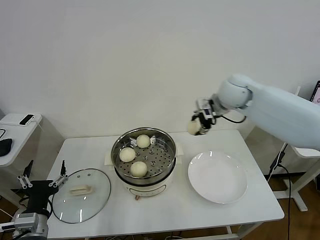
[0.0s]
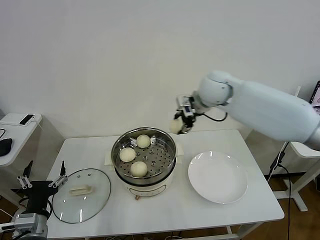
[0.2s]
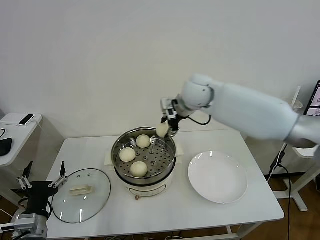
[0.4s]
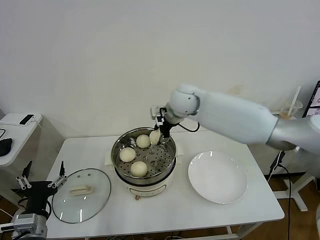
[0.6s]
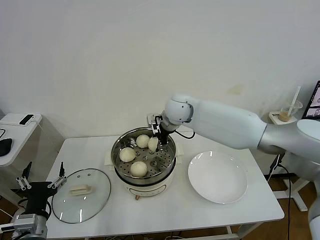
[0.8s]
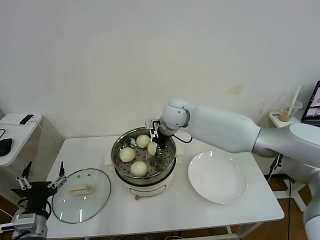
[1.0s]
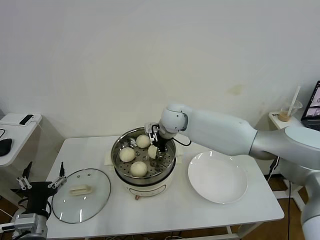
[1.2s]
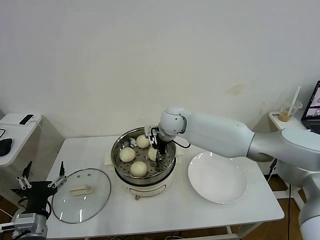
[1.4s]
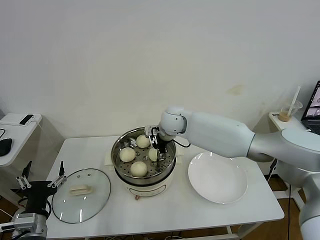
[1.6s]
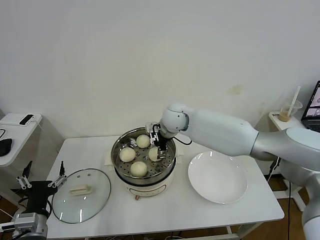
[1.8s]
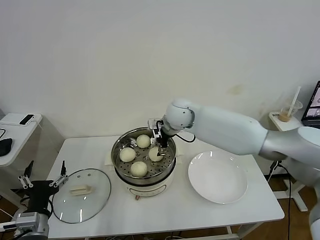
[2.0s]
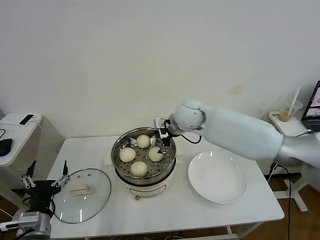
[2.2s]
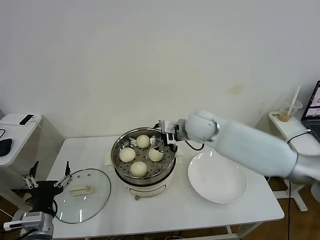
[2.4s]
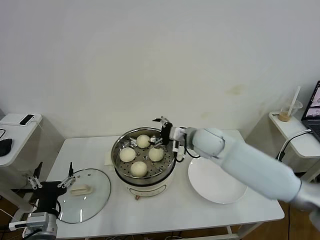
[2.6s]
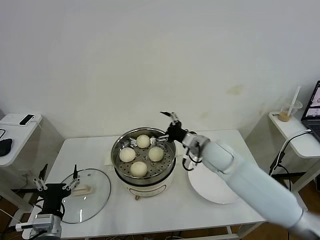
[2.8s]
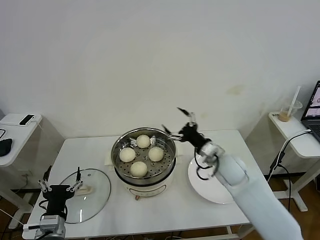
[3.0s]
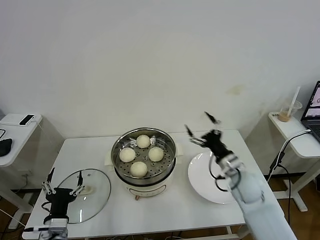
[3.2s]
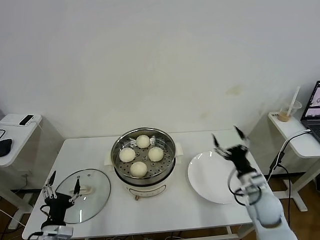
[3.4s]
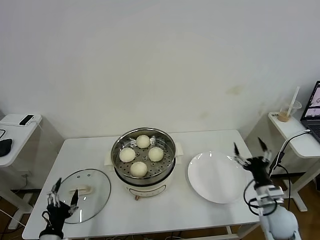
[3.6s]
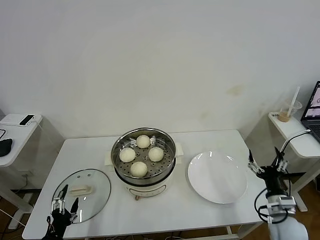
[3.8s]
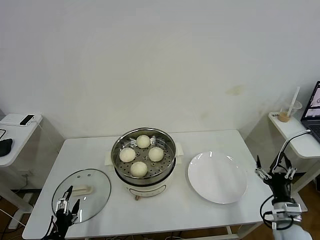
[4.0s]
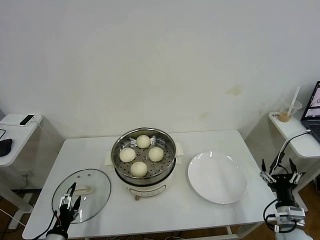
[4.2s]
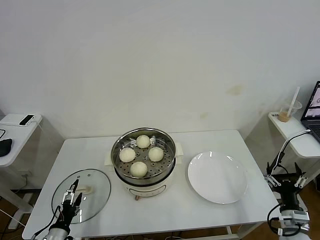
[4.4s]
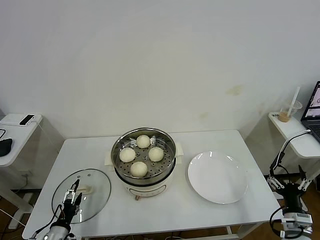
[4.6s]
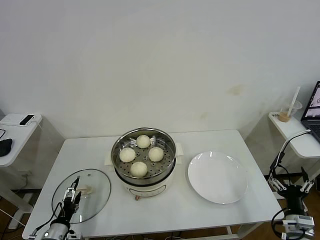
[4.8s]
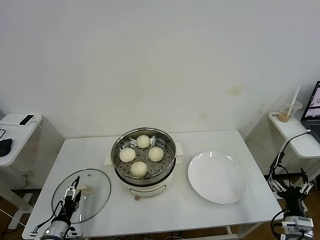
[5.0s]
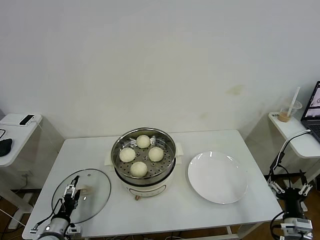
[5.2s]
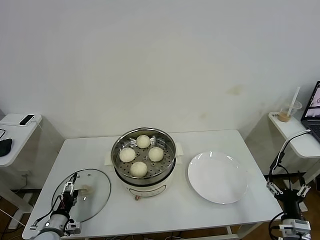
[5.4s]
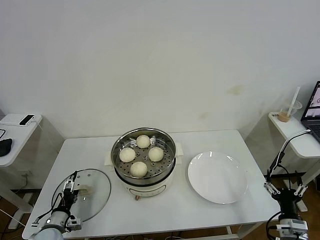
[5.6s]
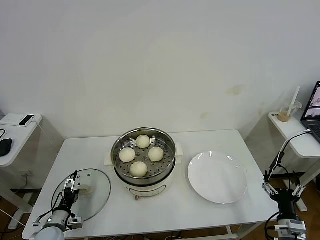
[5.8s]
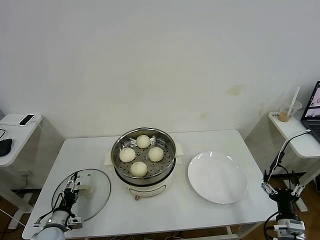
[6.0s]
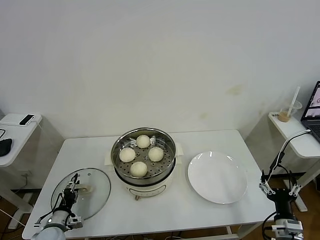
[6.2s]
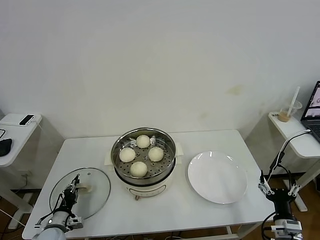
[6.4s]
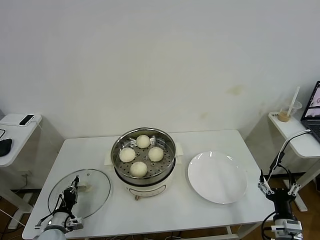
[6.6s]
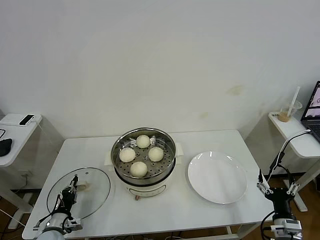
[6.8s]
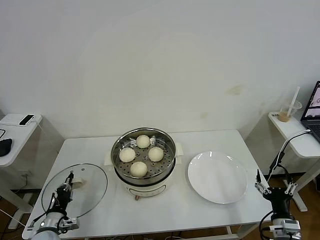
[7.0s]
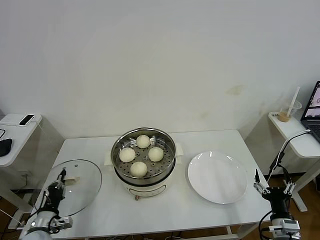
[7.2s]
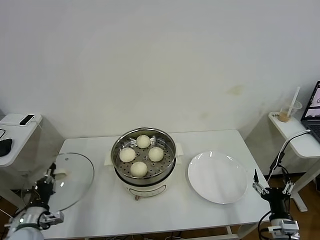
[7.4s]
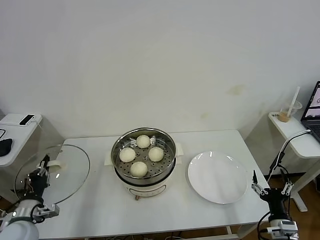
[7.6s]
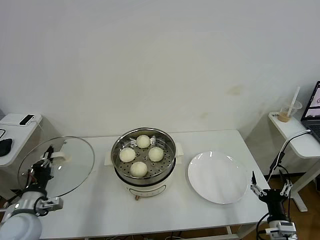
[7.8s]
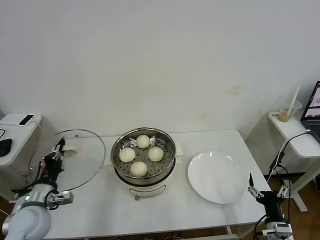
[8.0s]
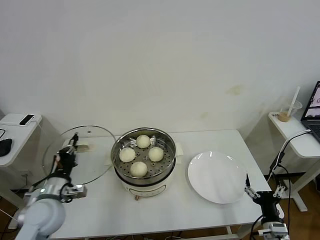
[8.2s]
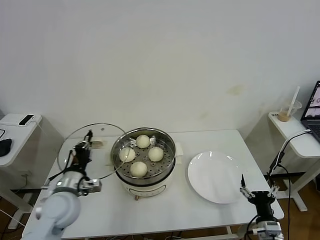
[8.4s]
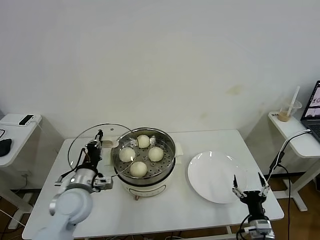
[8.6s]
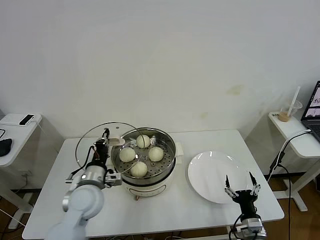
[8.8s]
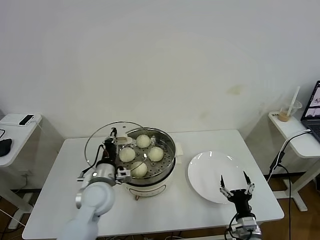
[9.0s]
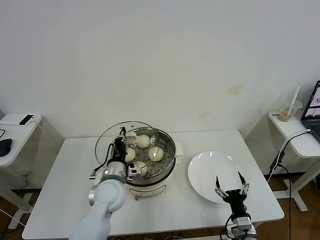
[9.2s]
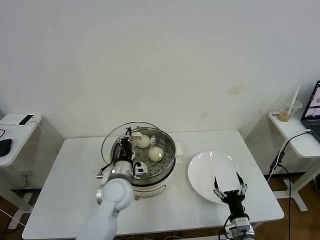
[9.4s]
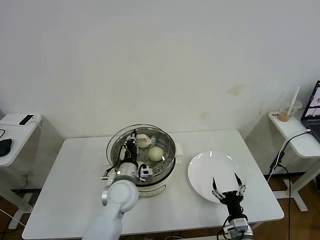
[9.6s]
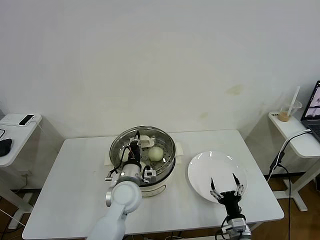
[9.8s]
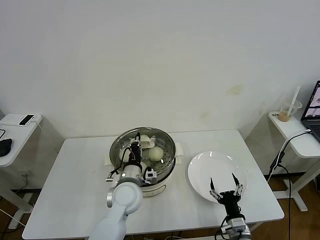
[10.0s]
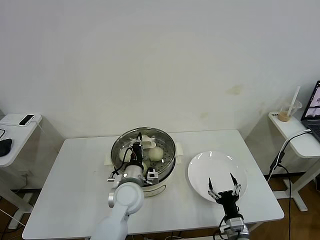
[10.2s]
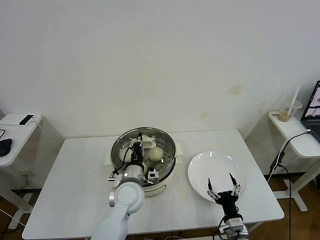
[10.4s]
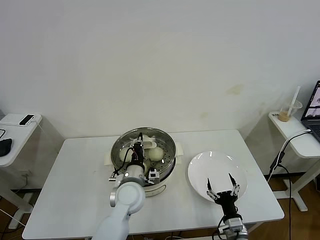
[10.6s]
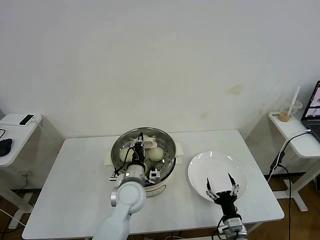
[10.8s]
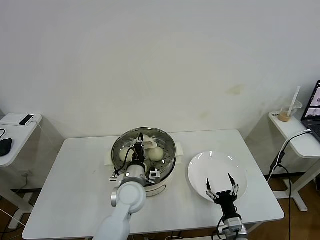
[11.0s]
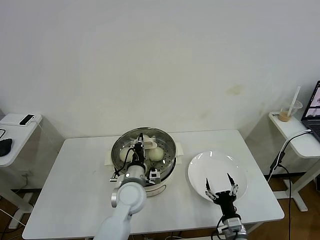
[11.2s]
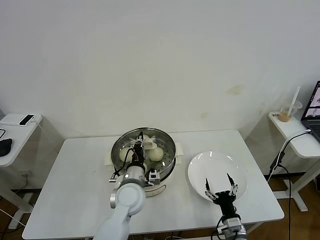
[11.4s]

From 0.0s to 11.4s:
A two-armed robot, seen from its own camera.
Task of the whole recording: take steamed baozi put them in steamer then cover it.
Step, from 0.0s to 2.0s: Place the baozi on the steamer with right gripper.
Step, from 2.2s to 6.6s: Grasp the pot lid with left gripper.
From 0.0s to 1.4s: The right gripper heads to the left and downward, covering some 20 cm.
From 1.4s to 2.8s: The right gripper moves to the right and backward, some 20 cm, and opens up.
From 2.8s to 4.2s: The right gripper is displaced to the right, backward and downward by roughly 35 cm, while the left gripper is displaced downward and to the left by roughly 10 cm.
From 4.2s to 5.6s: The left gripper is displaced forward by roughly 10 cm.
From 5.6s to 7.2s: The left gripper closes.
From 7.2s to 8.6s: The left gripper is displaced to the right, upward and forward by approximately 20 cm. The right gripper moves about 5 cm.
From 8.6s to 10.0s: The left gripper travels to the right by roughly 15 cm. The right gripper goes some 5 cm to the left.
From 10.0s to 11.4s: Both grippers stay put.

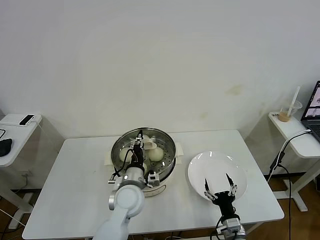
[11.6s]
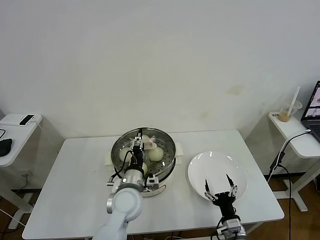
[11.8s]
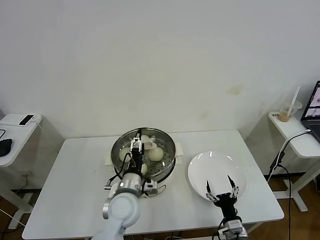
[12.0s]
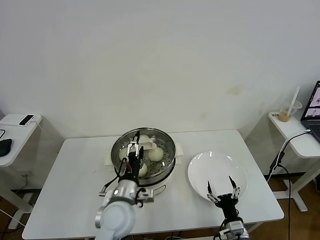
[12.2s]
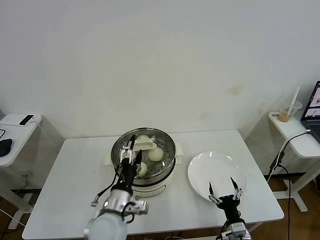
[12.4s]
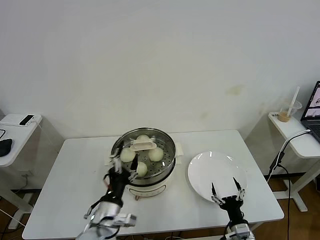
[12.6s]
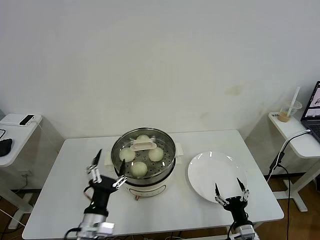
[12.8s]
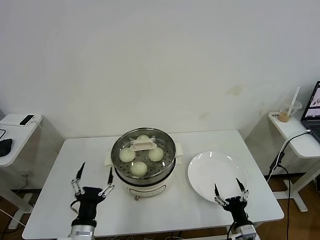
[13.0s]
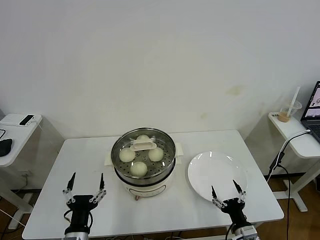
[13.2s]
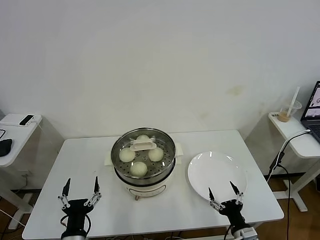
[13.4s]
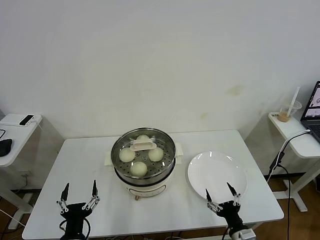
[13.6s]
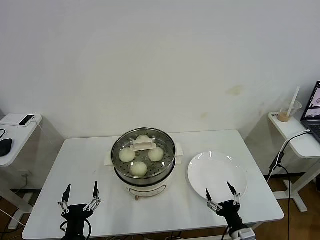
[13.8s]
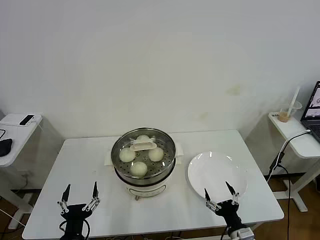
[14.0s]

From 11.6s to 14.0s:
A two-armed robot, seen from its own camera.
Task of the whole recording: take steamed baozi put them in steamer then cover it.
From 11.6s to 12.8s: The left gripper shifts about 15 cm backward and to the left, and opens up.
From 12.8s to 14.0s: The left gripper shifts some 10 cm backward, to the left and downward.

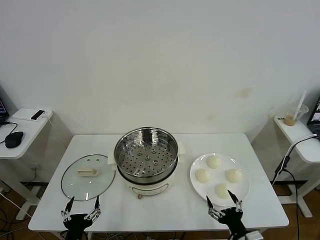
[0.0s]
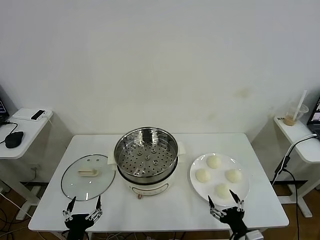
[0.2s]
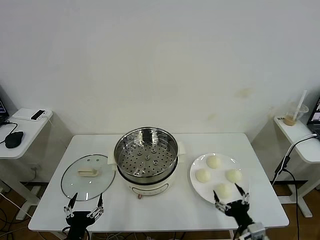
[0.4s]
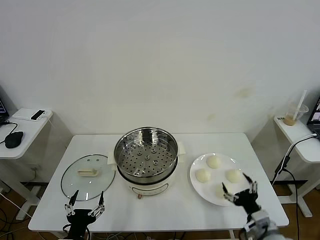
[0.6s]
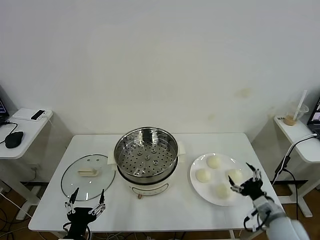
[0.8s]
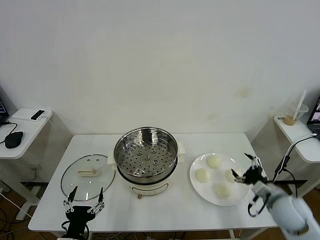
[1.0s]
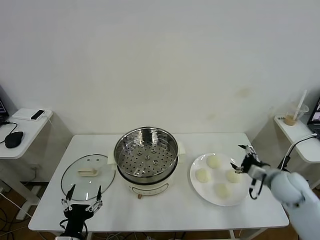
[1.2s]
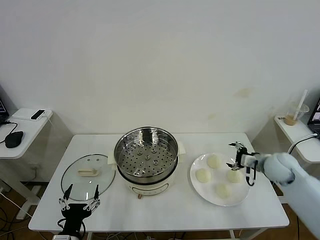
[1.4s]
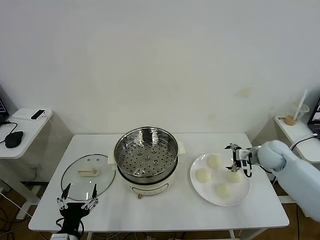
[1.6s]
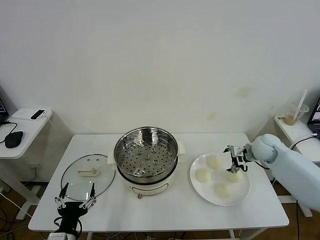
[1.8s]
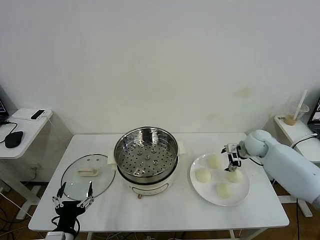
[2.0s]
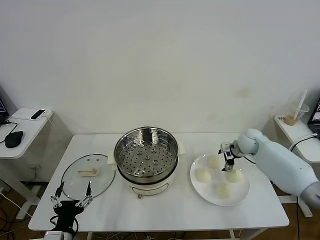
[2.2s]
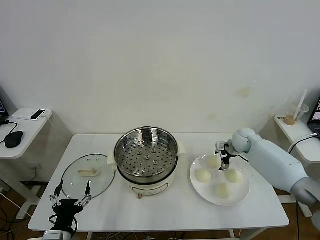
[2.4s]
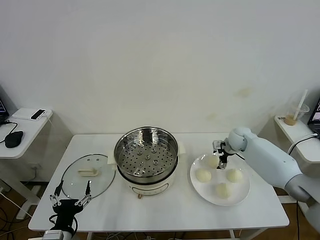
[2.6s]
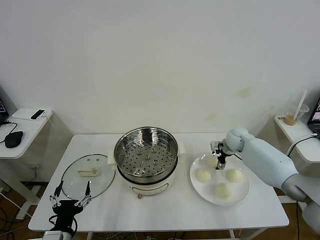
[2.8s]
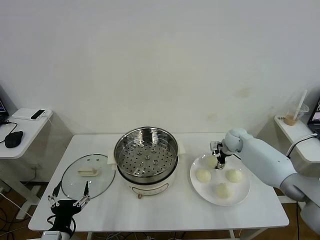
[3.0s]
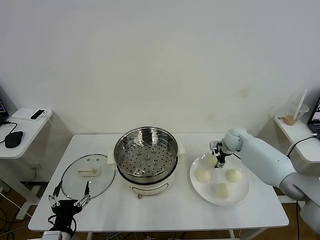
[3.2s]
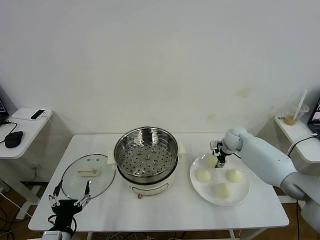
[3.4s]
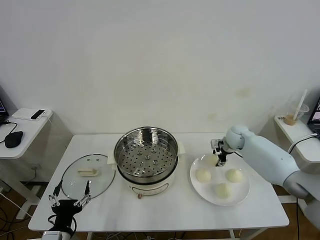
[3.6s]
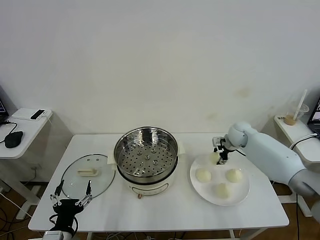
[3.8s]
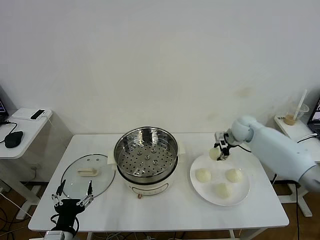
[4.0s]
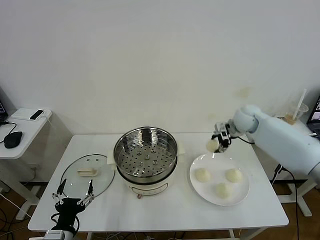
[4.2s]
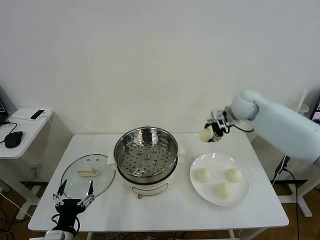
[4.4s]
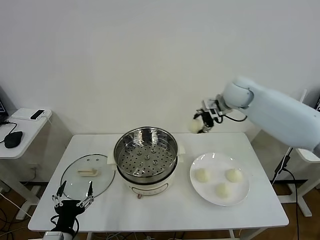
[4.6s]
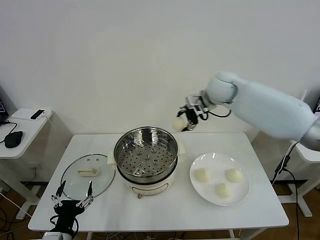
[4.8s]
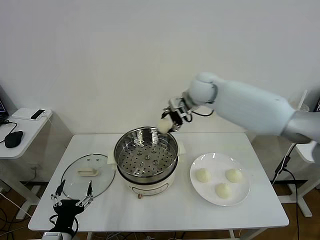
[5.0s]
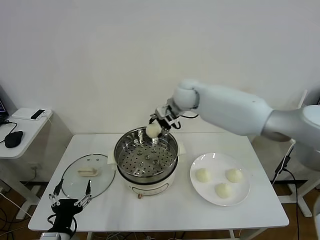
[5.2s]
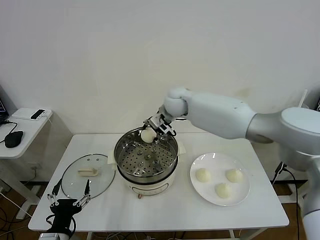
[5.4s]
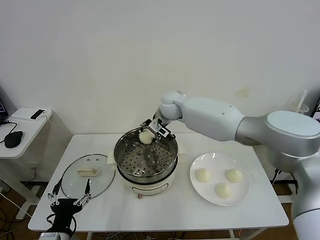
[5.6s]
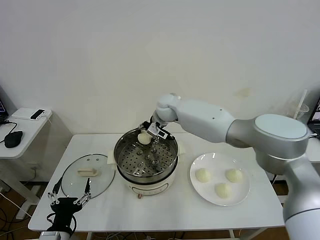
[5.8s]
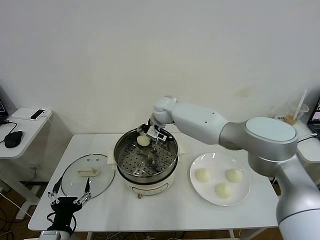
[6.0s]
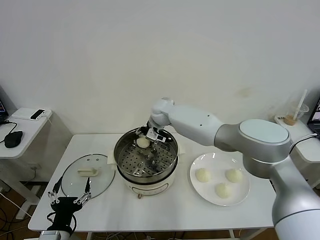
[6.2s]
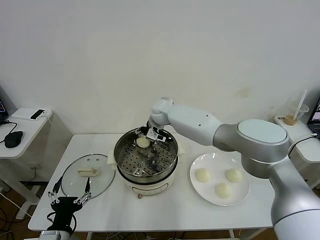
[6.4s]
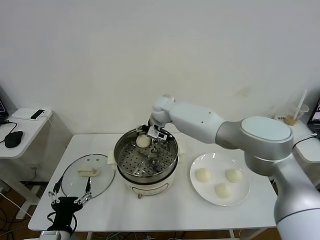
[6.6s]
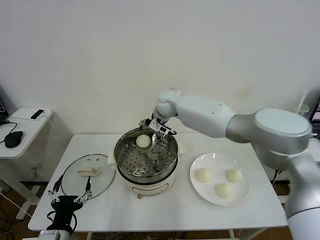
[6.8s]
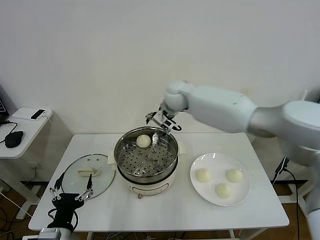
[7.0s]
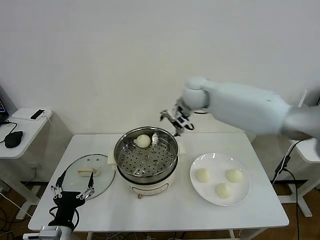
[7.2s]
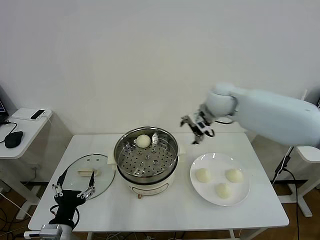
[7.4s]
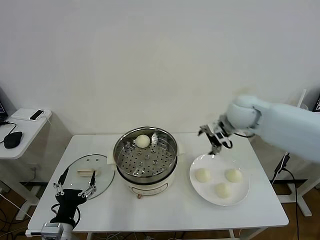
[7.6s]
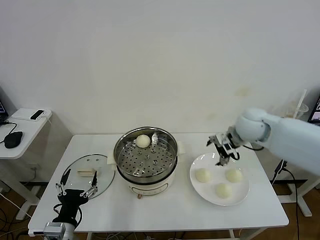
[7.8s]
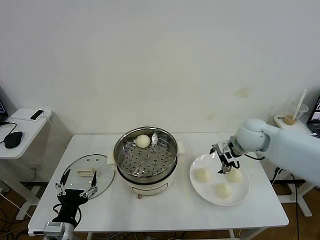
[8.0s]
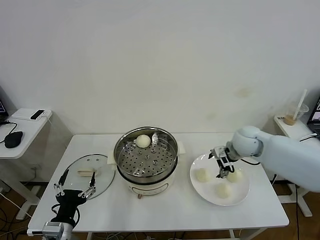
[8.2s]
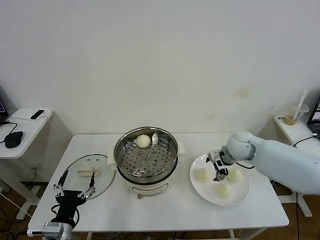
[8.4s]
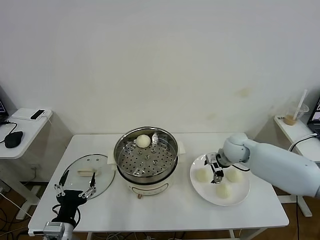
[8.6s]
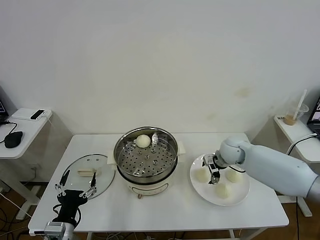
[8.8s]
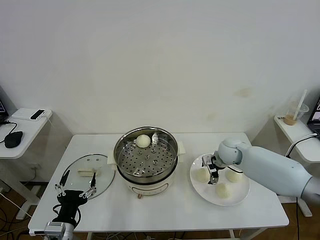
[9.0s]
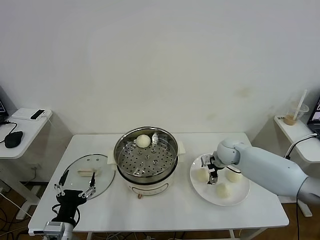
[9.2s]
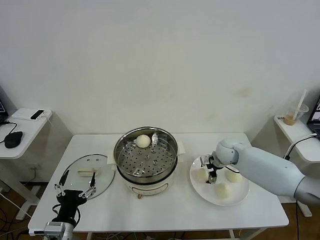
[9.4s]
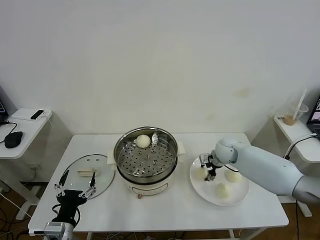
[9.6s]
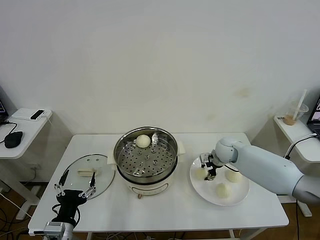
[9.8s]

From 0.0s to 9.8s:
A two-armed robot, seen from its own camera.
Task of the whole recording: take steamed baozi put them in steamer then cover it.
Step, from 0.0s to 3.4s: Grasp the baozi in the plate with right gripper.
Step, from 3.6s to 6.4s: Place the baozi on the steamer with right gripper.
Step, from 6.8s to 9.6s: Grasp the baozi in the plate with right gripper.
From 1.4s to 2.8s: The right gripper travels forward and to the left by approximately 15 cm.
From 2.8s to 4.2s: The right gripper goes roughly 15 cm upward, and closes.
From 4.2s to 5.6s: The right gripper travels to the left by approximately 25 cm.
From 5.6s to 7.0s: The right gripper goes about 5 cm upward, and opens.
From 7.0s to 8.4s: The right gripper goes some 25 cm to the right, downward and backward.
From 8.4s to 9.8s: The right gripper moves downward, some 5 cm, and closes up.
